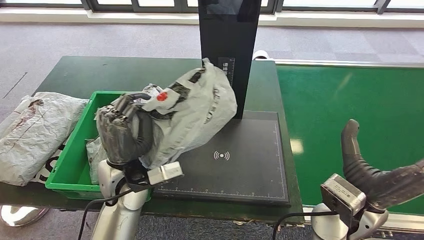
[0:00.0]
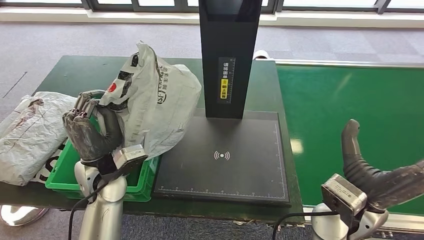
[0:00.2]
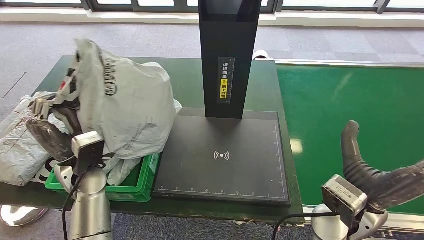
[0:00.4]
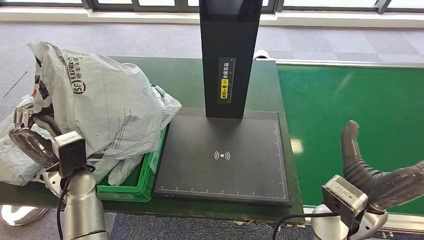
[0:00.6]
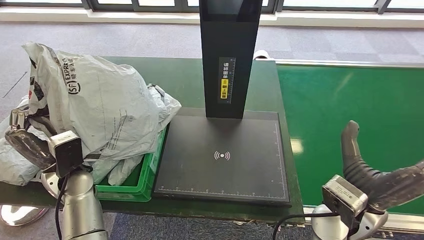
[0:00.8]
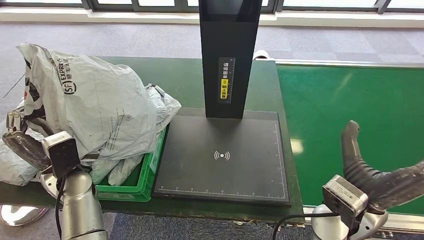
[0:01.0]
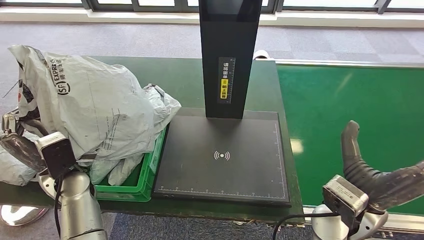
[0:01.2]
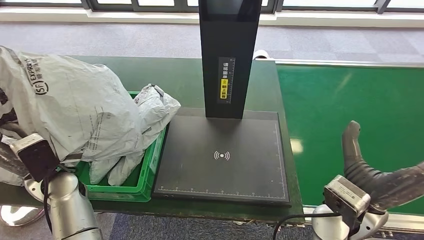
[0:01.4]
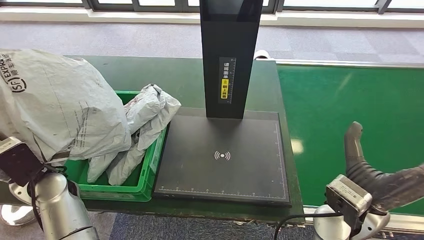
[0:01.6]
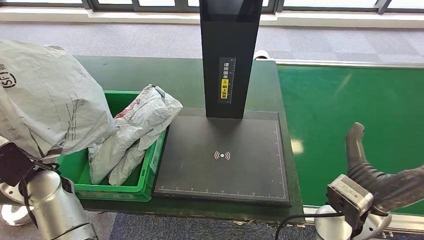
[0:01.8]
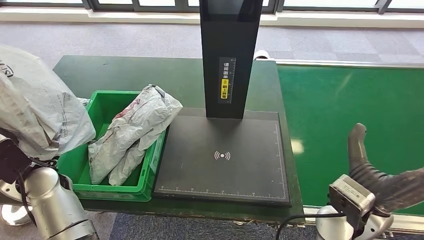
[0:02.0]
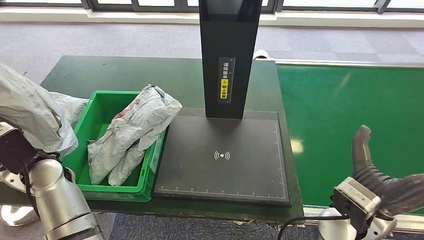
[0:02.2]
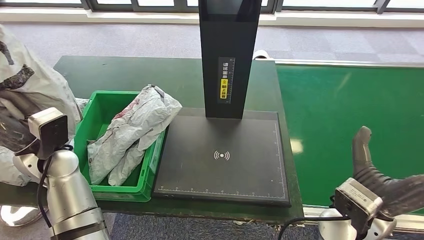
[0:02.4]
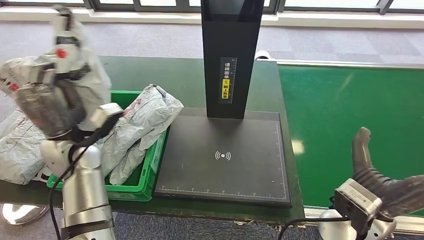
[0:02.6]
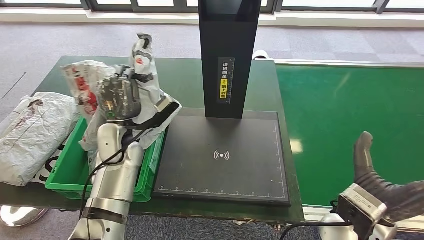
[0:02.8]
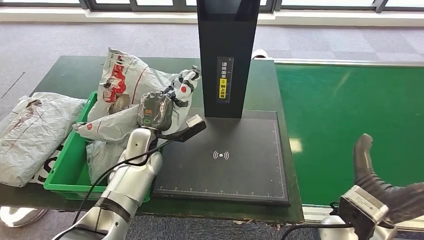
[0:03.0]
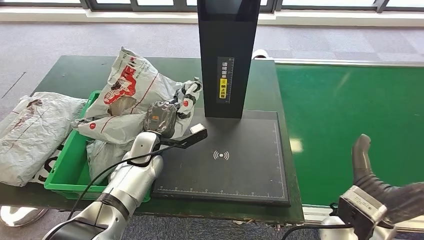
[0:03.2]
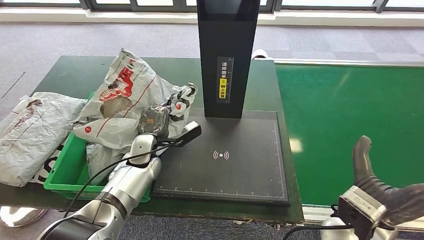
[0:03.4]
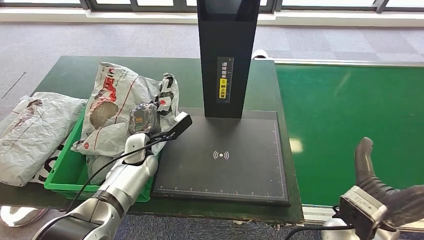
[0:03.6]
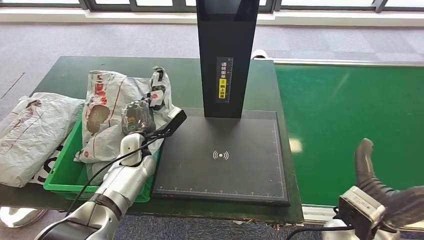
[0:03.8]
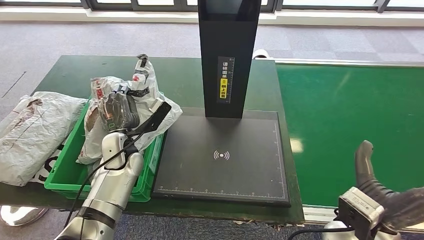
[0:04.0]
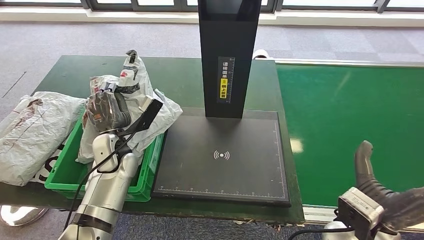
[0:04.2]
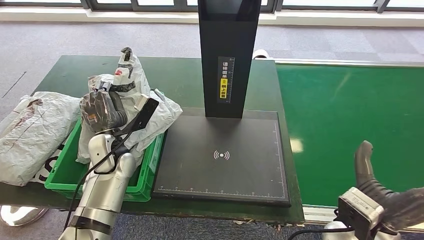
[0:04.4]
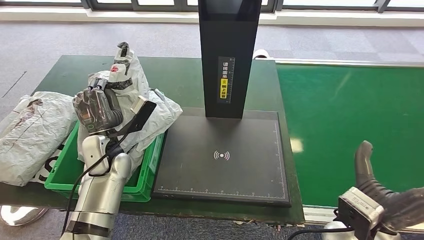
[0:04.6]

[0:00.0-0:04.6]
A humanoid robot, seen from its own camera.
Step, 0:00.0 to 0:04.6: Place the parcel into the delivery box.
0:03.0 to 0:04.6: The left hand travels to the left by approximately 10 cm.
